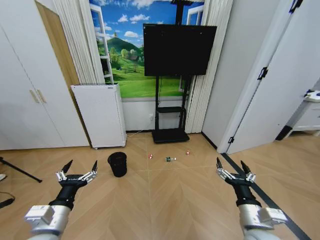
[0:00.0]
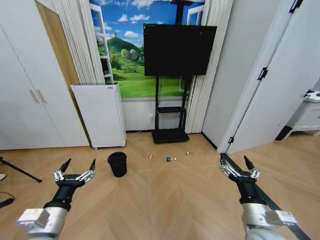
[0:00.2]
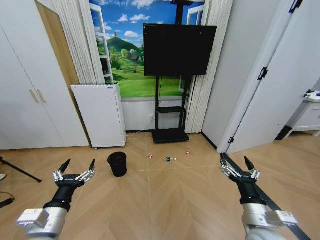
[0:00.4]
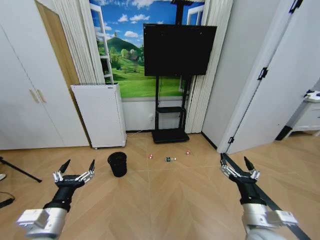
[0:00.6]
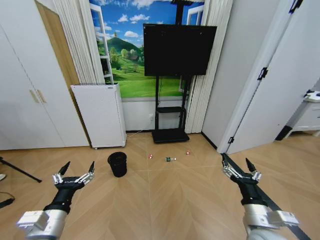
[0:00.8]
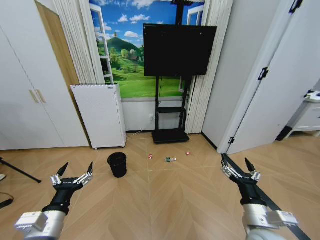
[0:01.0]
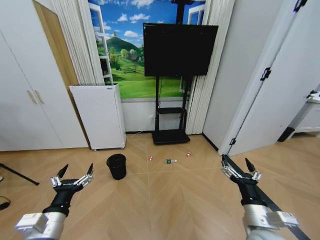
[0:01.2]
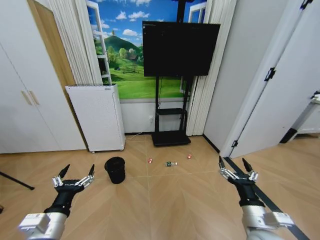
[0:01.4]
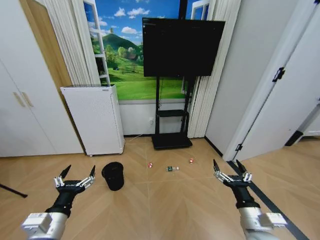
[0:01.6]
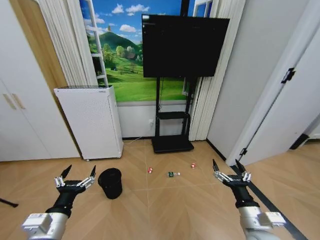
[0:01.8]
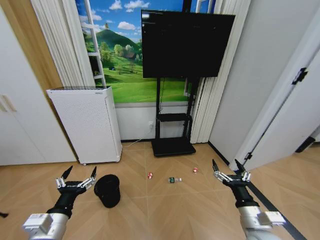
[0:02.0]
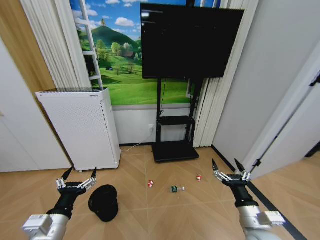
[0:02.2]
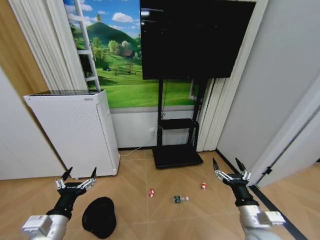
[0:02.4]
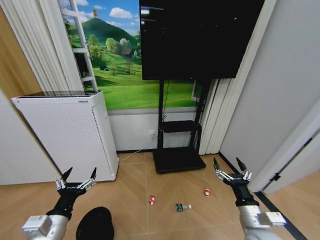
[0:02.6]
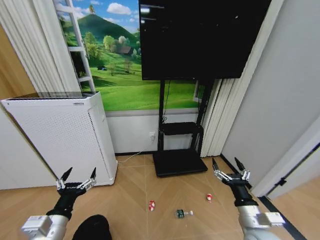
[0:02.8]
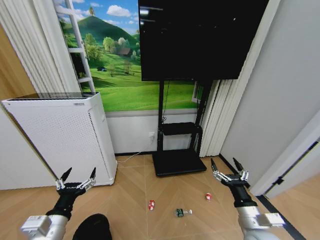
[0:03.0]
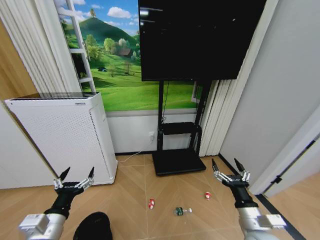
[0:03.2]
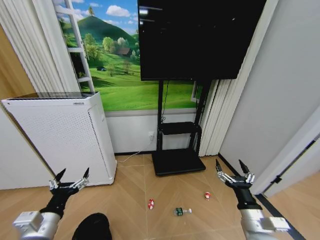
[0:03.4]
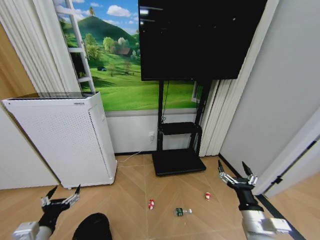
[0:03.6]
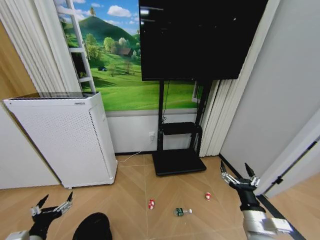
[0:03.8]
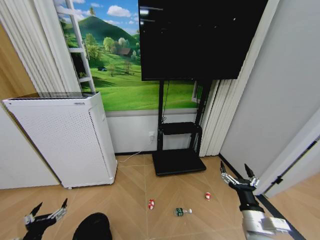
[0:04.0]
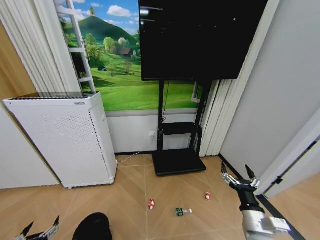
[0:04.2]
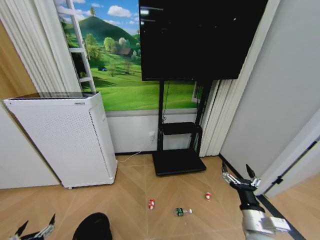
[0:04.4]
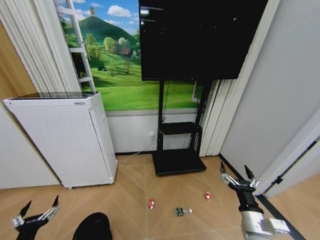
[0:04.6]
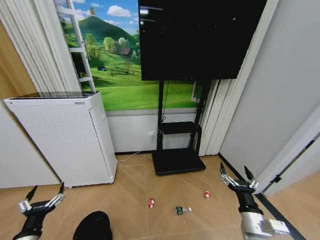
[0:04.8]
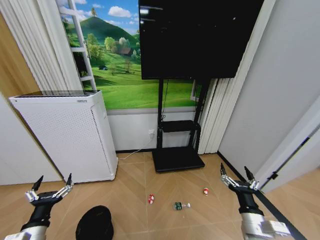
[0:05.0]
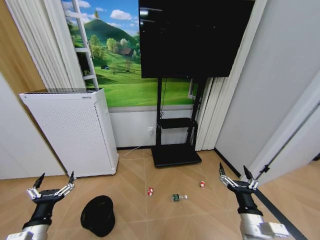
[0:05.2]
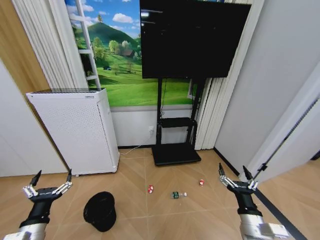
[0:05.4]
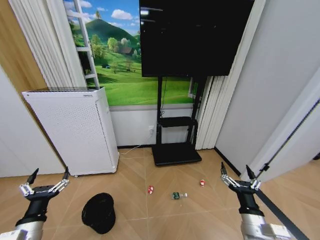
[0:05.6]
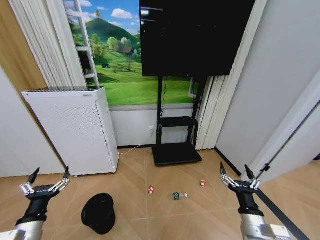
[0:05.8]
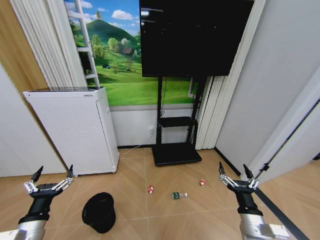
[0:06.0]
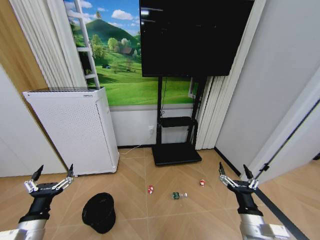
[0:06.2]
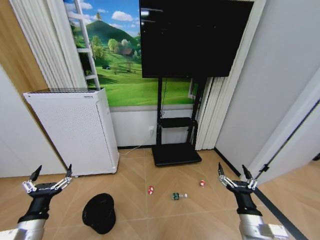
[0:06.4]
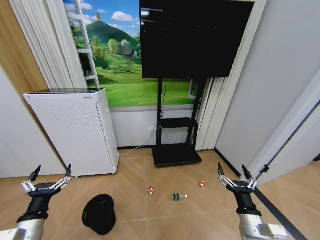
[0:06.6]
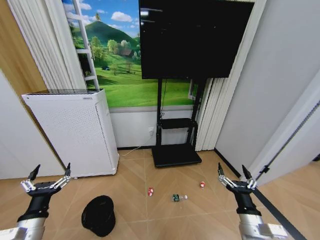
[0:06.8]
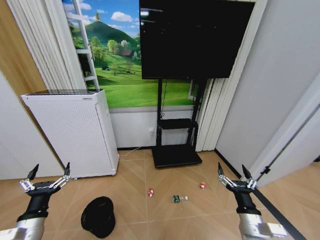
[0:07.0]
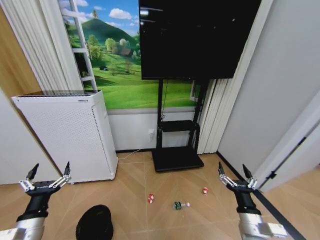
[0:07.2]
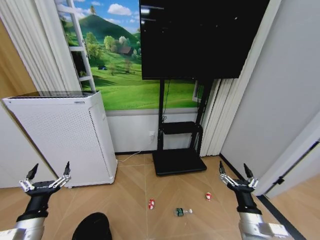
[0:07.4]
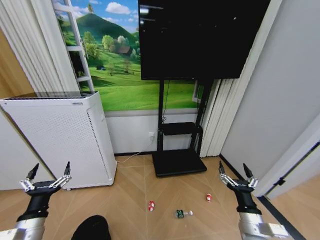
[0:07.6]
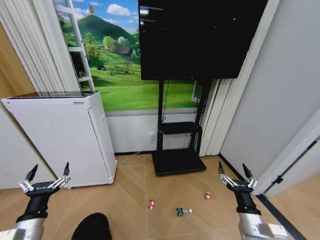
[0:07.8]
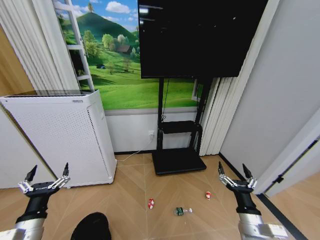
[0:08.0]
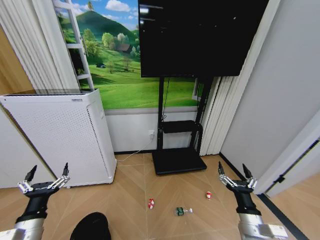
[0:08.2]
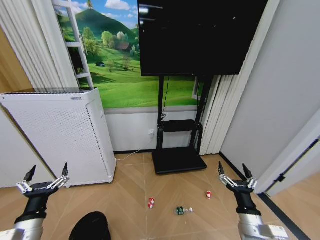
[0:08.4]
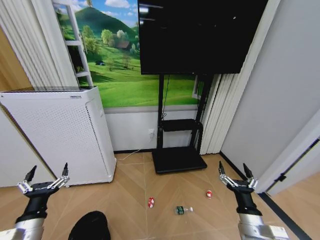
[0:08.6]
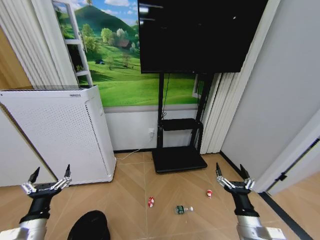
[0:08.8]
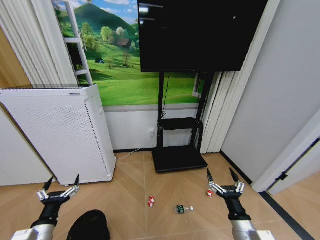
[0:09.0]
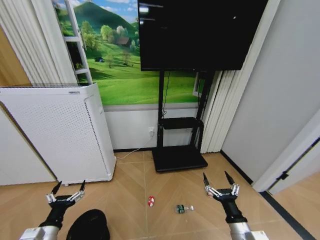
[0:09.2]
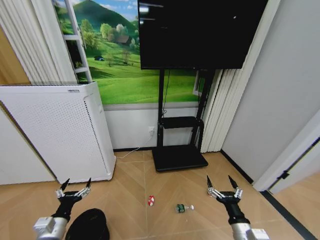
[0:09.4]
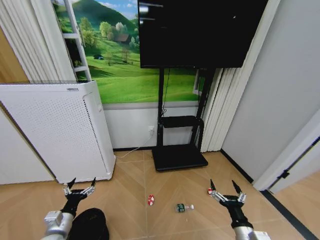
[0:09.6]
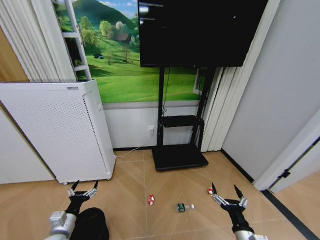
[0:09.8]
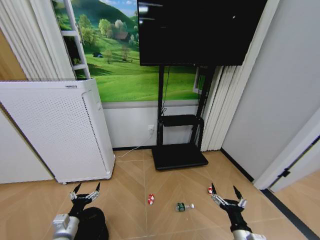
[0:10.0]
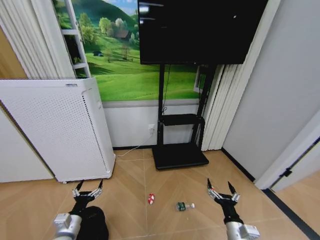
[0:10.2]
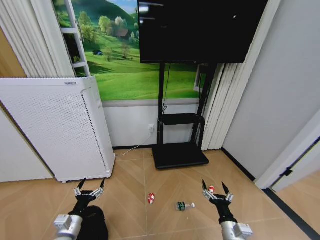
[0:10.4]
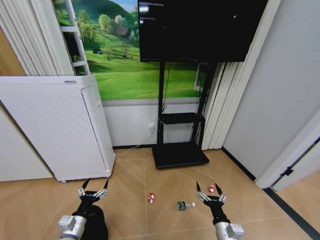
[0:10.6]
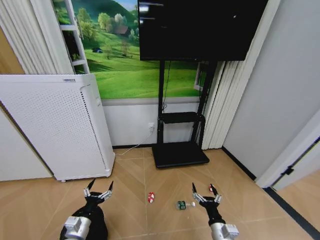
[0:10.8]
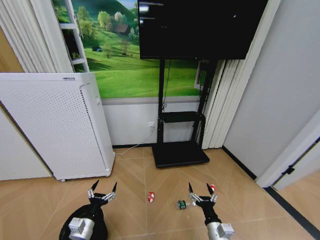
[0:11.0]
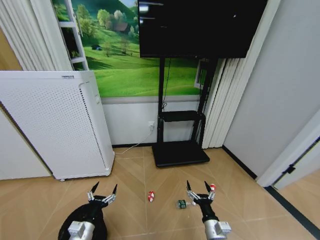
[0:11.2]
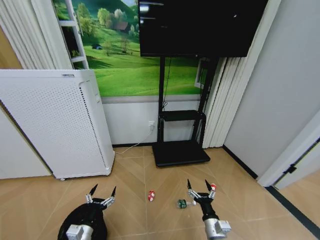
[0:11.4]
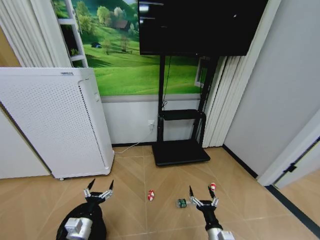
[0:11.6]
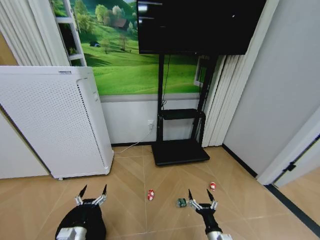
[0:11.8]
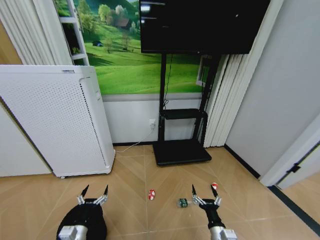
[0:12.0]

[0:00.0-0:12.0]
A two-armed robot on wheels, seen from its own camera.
Task of the whole recording: Pick up the trash bin and place the garbage on the floor into it.
0:03.0 to 0:04.4: The left gripper moves downward, to the left and backward, about 20 cm.
0:04.4 to 0:06.0: The left gripper is displaced upward, forward and to the right by about 15 cm.
0:09.0 to 0:10.4: The grippers both shift downward by some 5 cm.

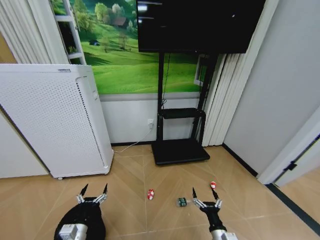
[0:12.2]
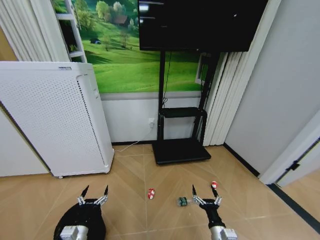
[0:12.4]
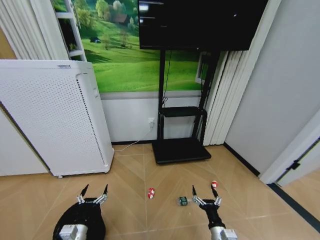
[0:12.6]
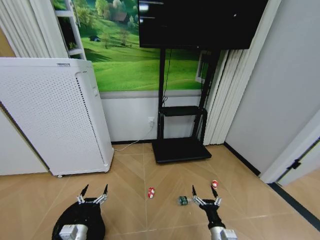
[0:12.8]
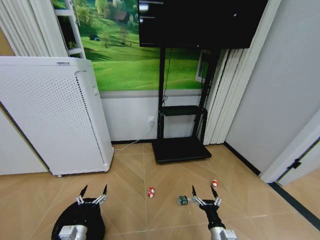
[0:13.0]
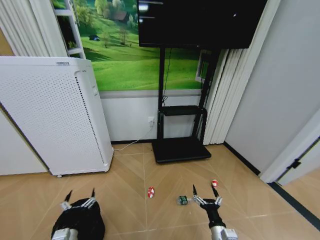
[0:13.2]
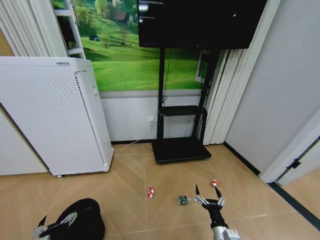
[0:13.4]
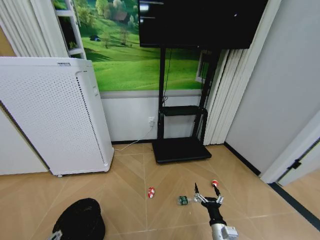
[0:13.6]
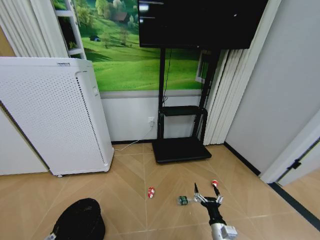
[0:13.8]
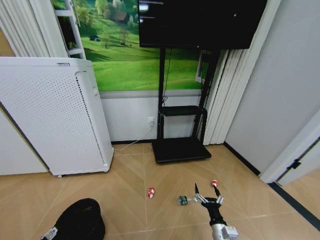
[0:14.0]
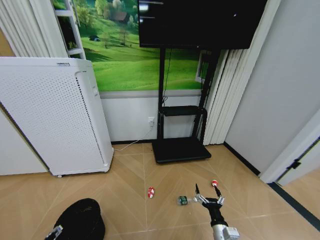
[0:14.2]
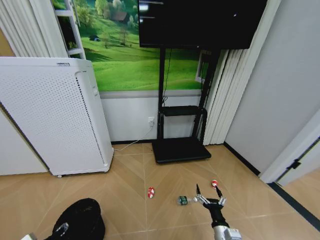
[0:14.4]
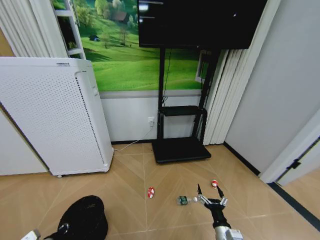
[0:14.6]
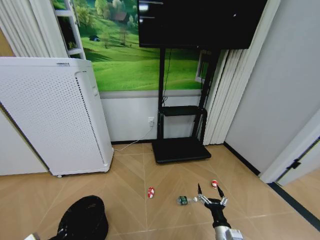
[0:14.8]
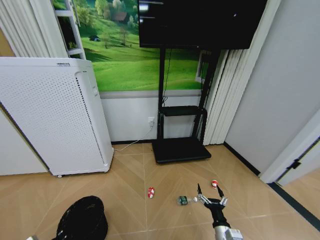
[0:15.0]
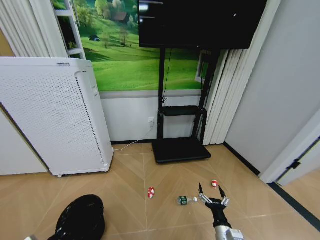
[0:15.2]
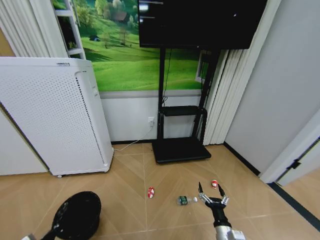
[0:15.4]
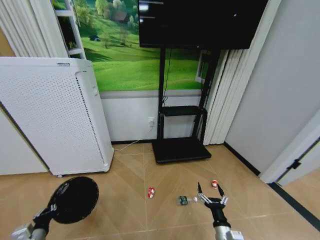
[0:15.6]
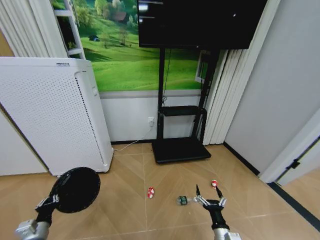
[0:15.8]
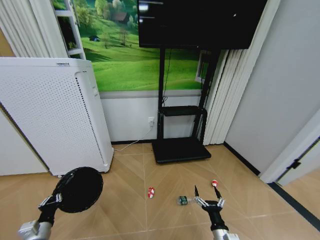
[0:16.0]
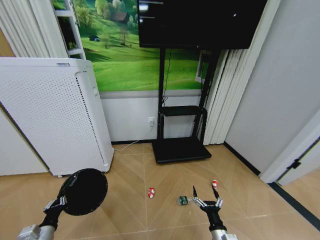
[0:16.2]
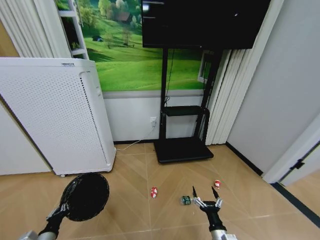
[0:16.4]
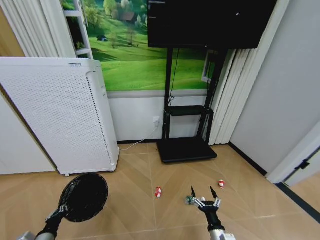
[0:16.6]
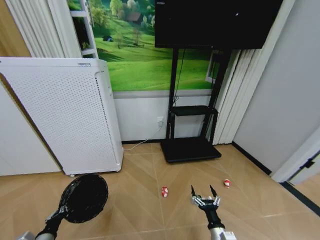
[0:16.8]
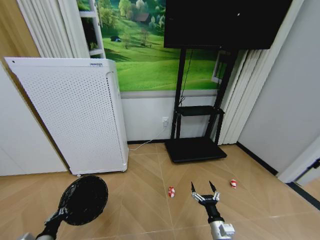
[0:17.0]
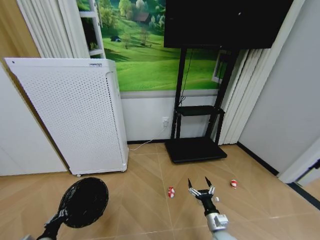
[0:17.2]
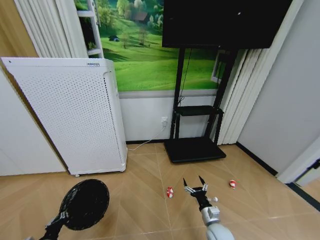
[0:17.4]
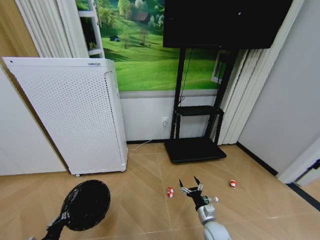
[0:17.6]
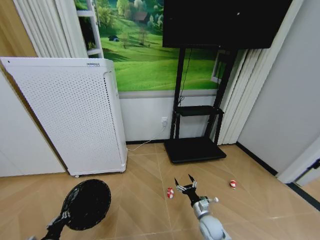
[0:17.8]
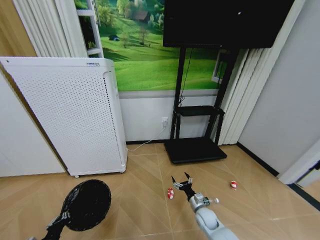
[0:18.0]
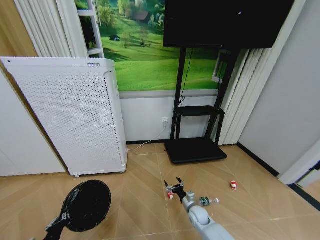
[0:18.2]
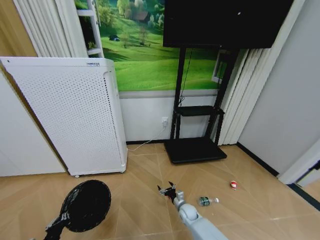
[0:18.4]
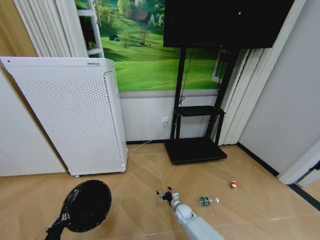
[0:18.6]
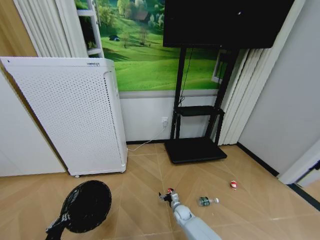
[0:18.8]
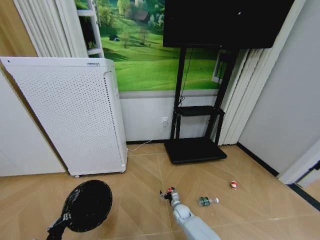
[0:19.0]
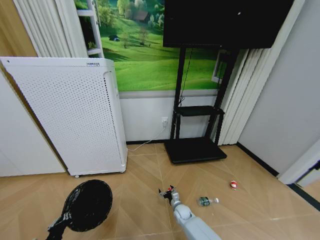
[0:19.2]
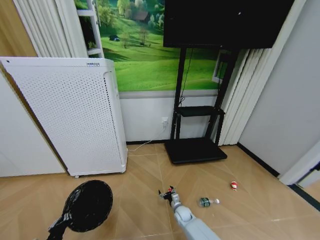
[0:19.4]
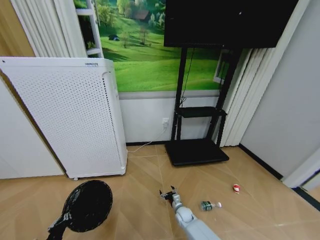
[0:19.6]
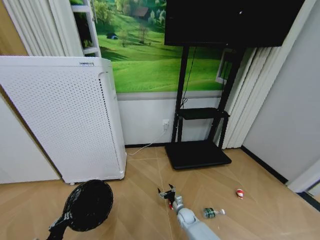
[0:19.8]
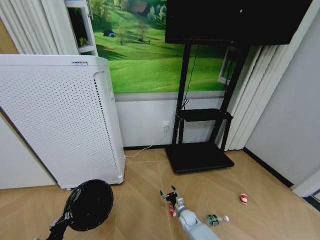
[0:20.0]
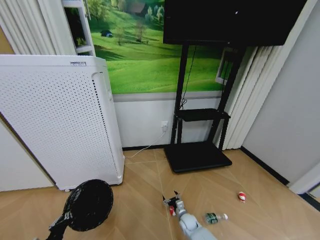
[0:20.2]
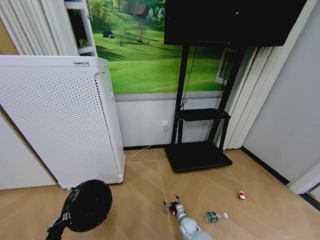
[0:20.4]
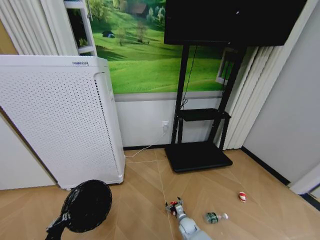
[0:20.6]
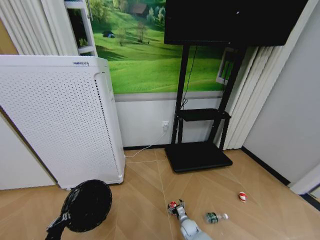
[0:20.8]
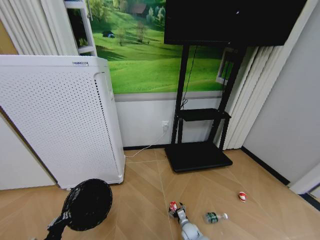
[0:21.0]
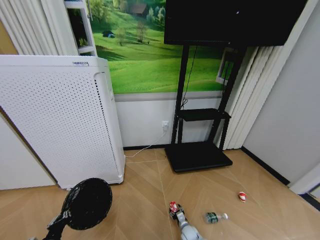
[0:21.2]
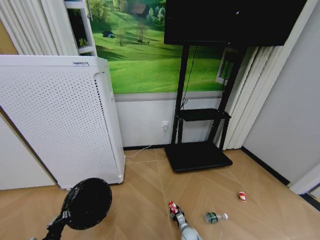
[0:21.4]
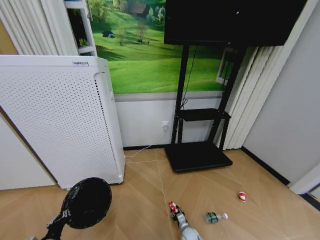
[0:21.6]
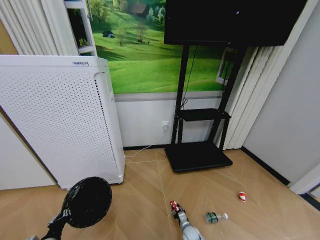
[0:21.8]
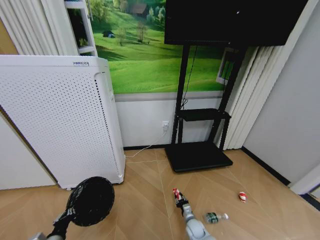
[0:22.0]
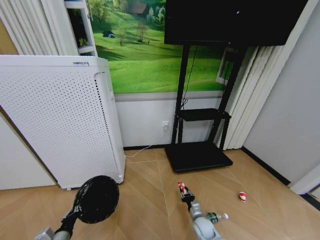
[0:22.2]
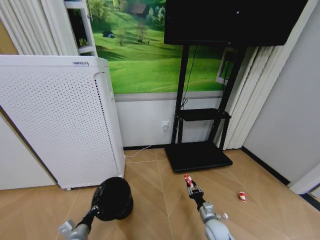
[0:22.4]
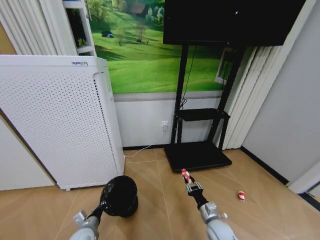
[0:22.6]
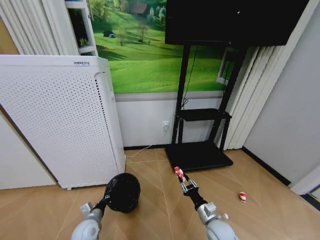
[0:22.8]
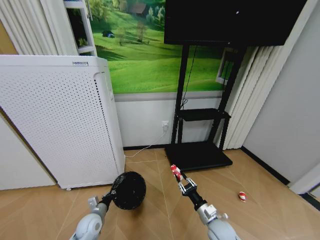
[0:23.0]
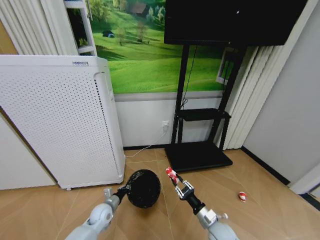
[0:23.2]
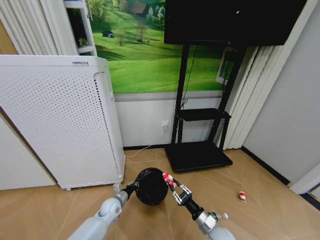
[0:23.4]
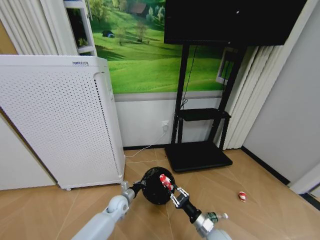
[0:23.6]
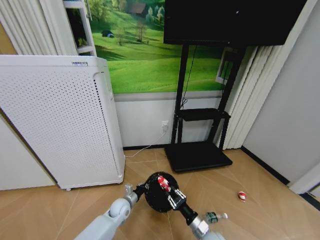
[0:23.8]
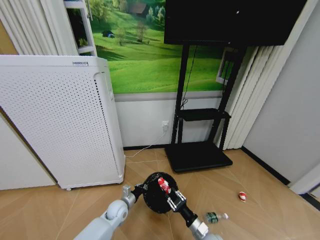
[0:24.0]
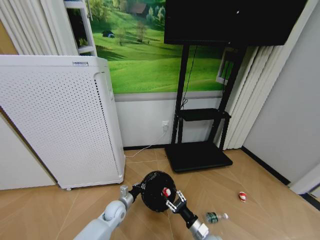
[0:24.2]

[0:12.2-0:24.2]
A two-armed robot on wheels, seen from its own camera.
Task of the whole recording: Pick up the trash bin and place the garbage on the floor into it.
0:12.2 to 0:13.8: The left gripper moves to the left, backward and upward, approximately 15 cm.
0:13.8 to 0:15.2: The left gripper travels downward and forward by some 10 cm, and closes.
0:16.6 to 0:18.2: The right gripper travels forward and downward by some 20 cm.
0:18.2 to 0:19.8: The right gripper is displaced downward by about 5 cm.
0:19.8 to 0:21.2: The right gripper heads backward and downward, covering approximately 10 cm.
0:21.2 to 0:22.6: The left gripper is displaced forward, to the right and downward by about 15 cm, while the right gripper shifts about 20 cm upward, and closes its fingers.
0:22.6 to 0:24.2: The left gripper goes approximately 15 cm forward and to the right. The right gripper changes place by about 5 cm.
